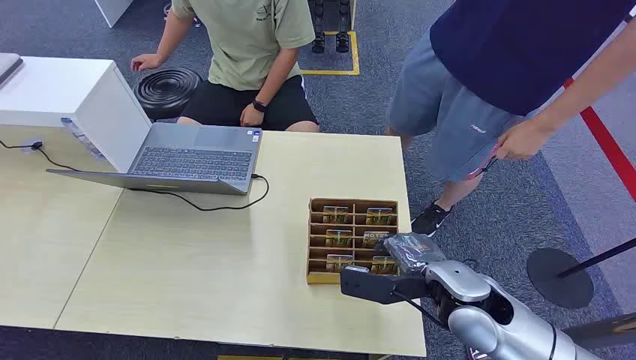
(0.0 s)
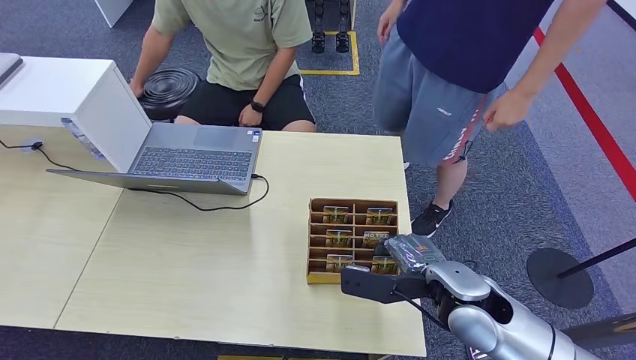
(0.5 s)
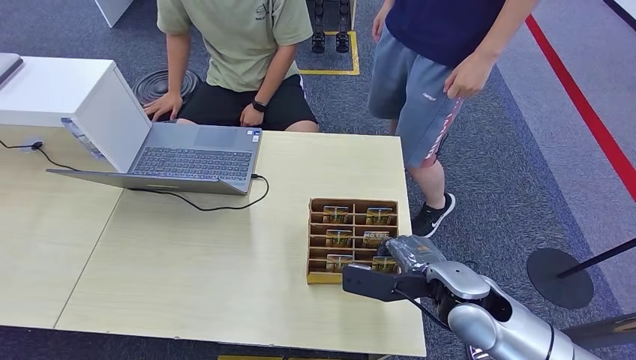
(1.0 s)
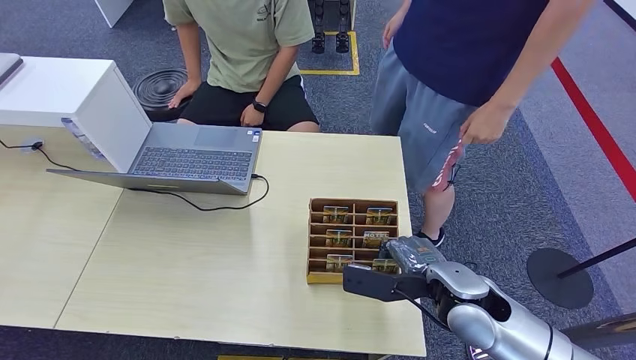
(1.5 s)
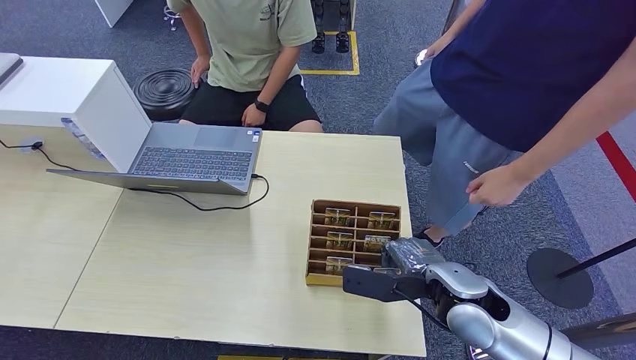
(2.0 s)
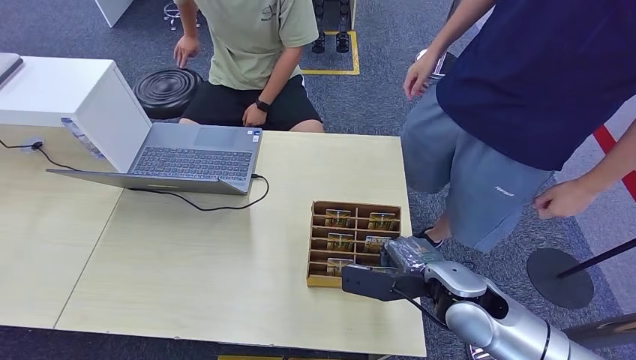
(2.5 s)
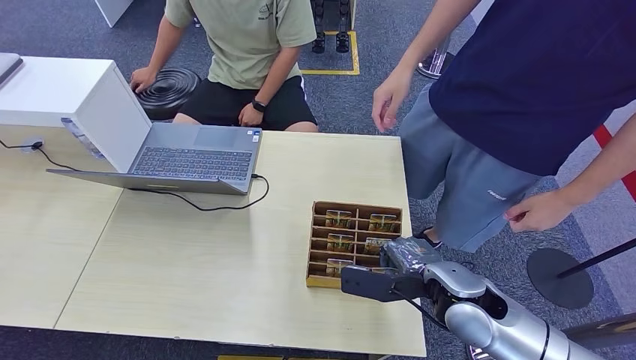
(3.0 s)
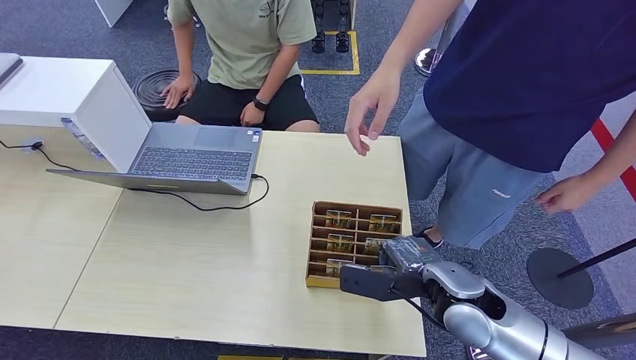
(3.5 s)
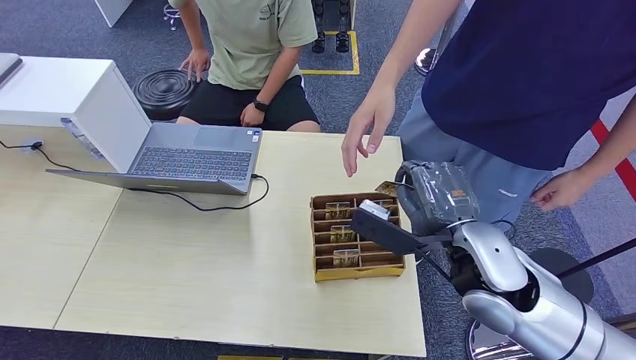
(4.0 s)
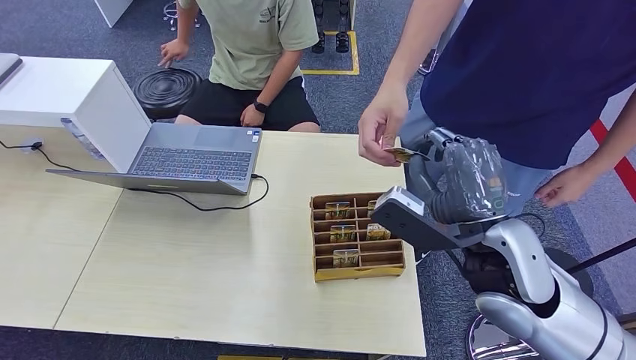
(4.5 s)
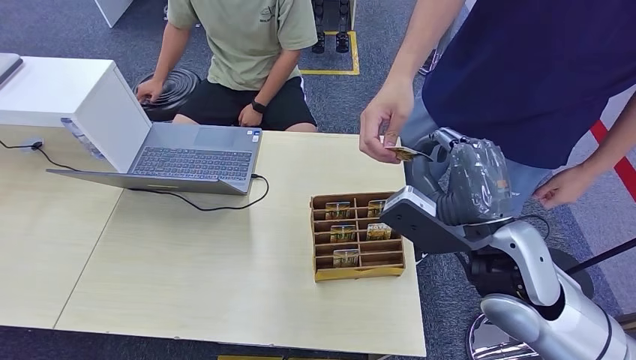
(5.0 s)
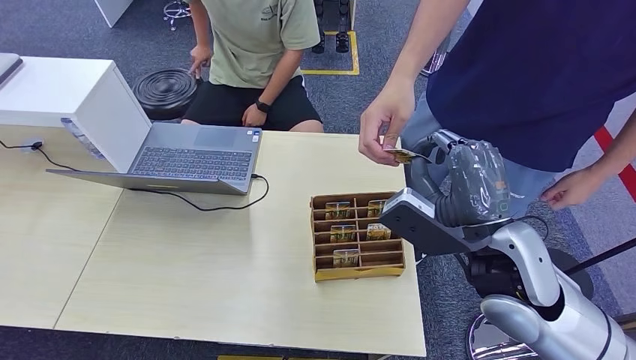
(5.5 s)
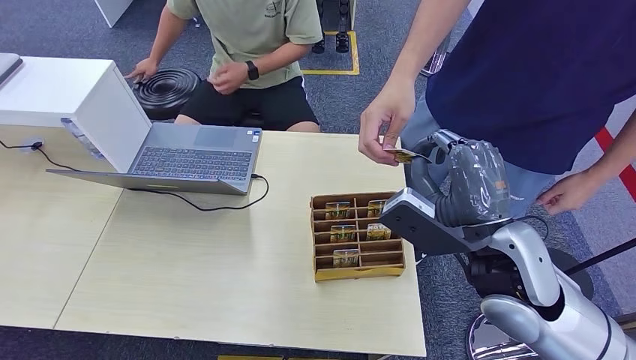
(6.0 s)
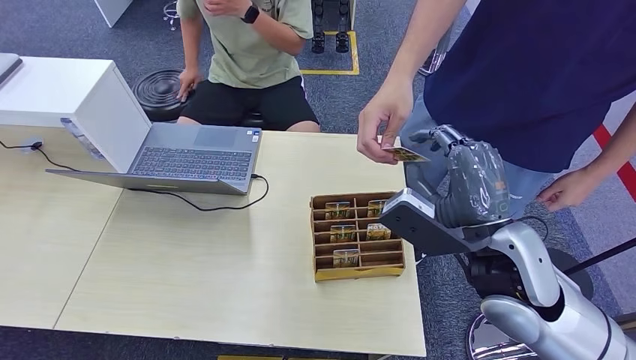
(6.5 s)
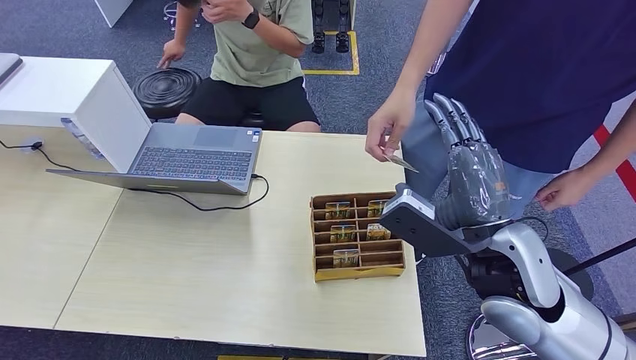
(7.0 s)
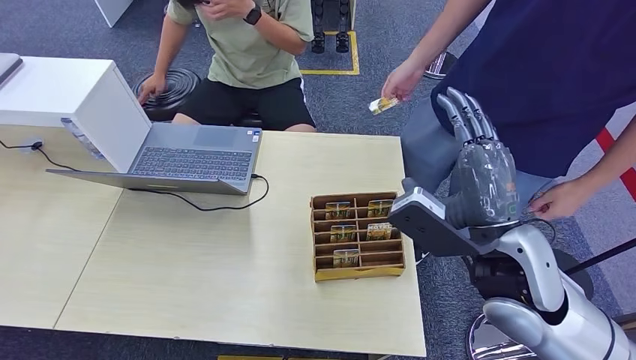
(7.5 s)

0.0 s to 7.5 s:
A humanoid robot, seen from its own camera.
Step, 0.0 to 3.5 s: Pick up the key card from the card box.
Step, 4.0 to 7.5 s: Hand the key card to the target.
5.5 to 7.5 s: The hands stay close to where they were, moving slightly.
